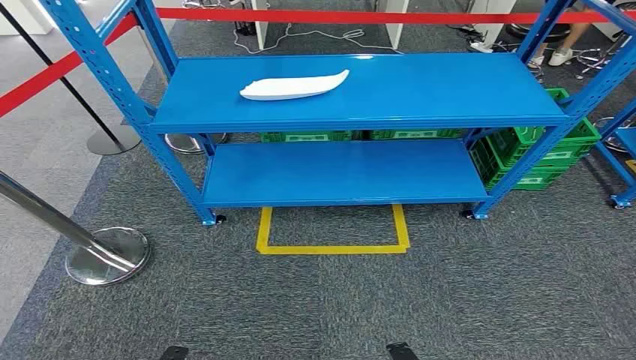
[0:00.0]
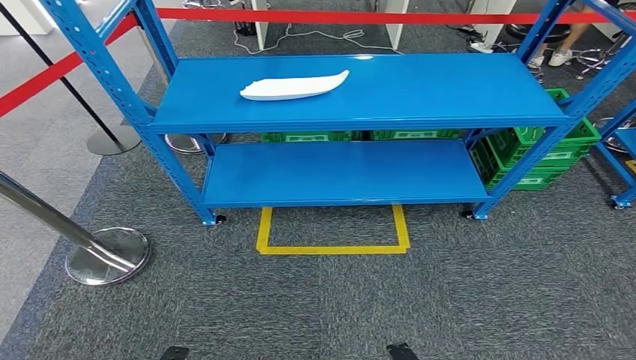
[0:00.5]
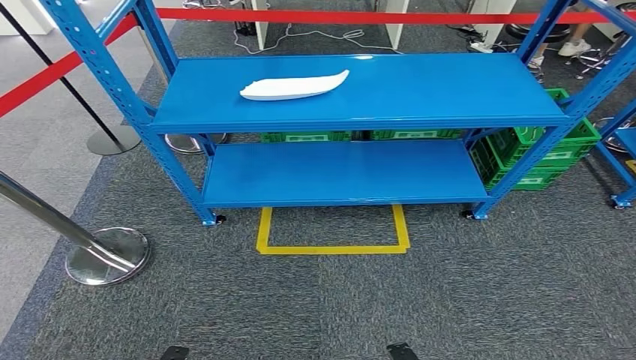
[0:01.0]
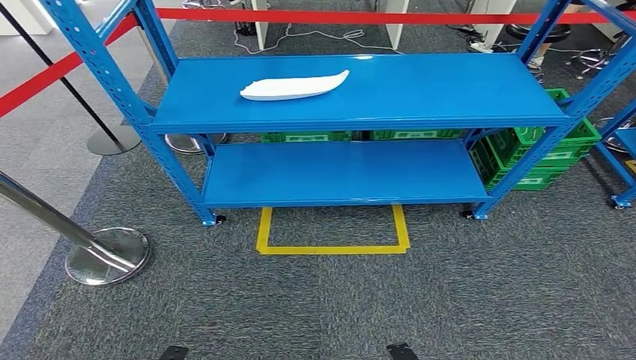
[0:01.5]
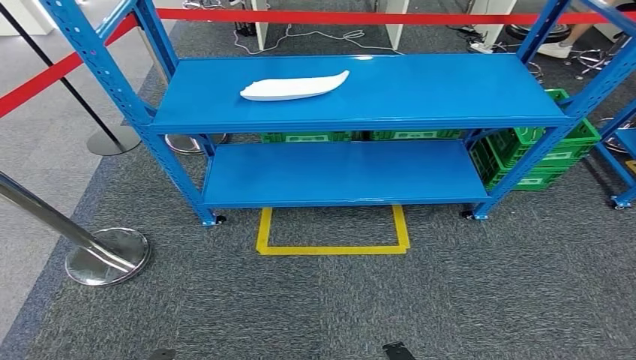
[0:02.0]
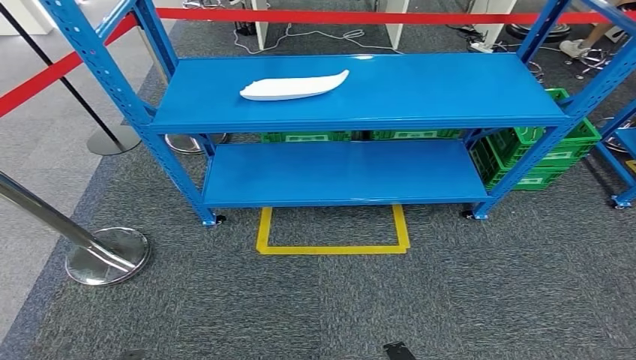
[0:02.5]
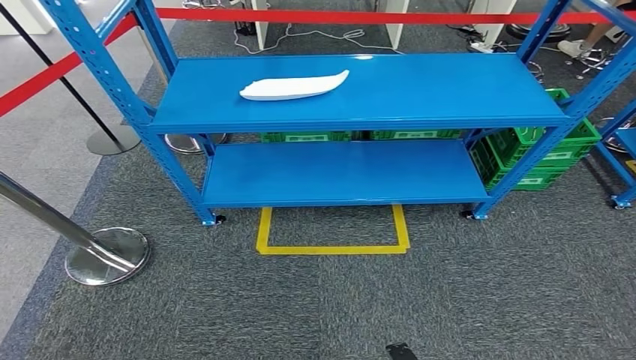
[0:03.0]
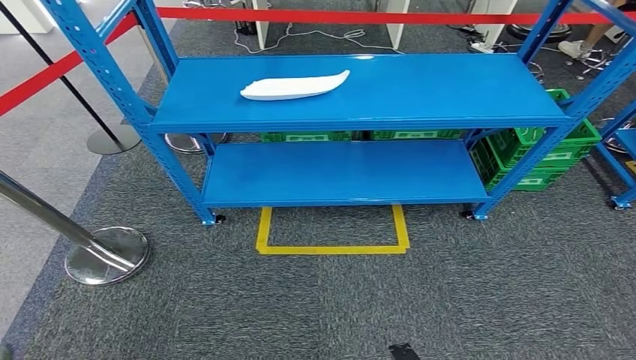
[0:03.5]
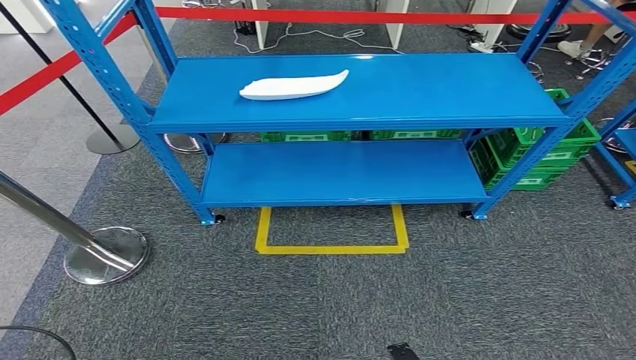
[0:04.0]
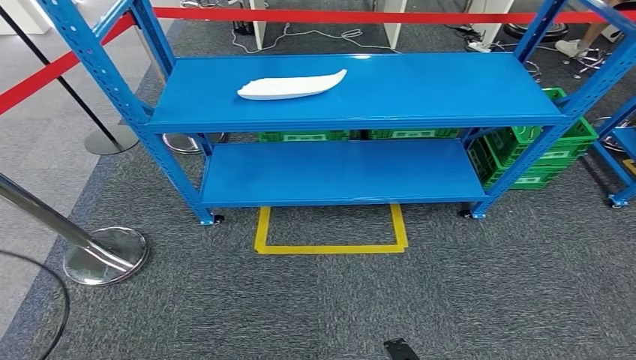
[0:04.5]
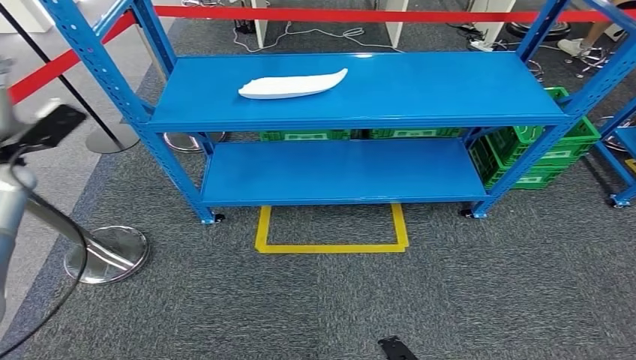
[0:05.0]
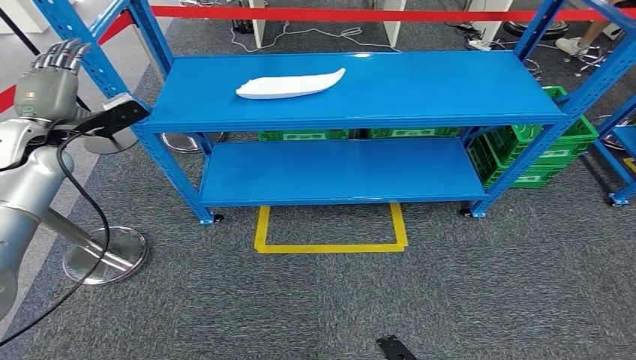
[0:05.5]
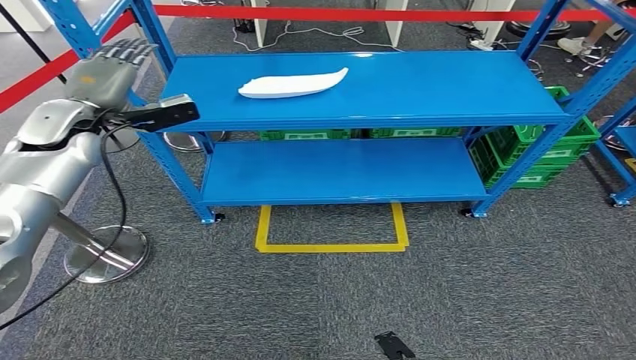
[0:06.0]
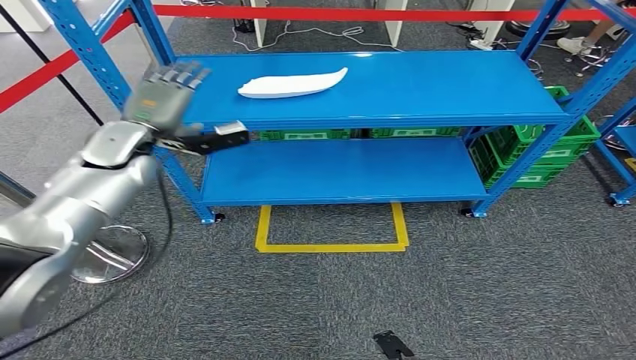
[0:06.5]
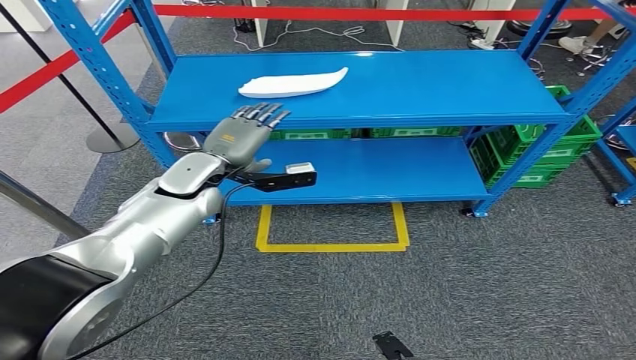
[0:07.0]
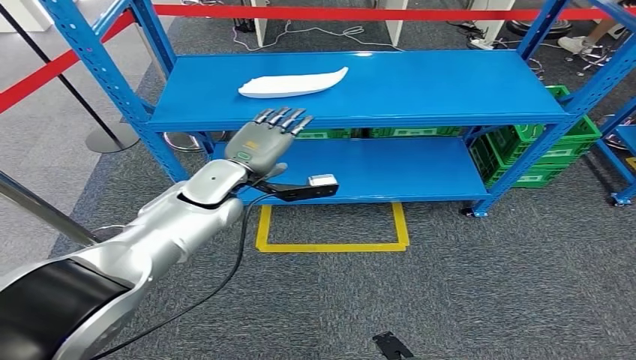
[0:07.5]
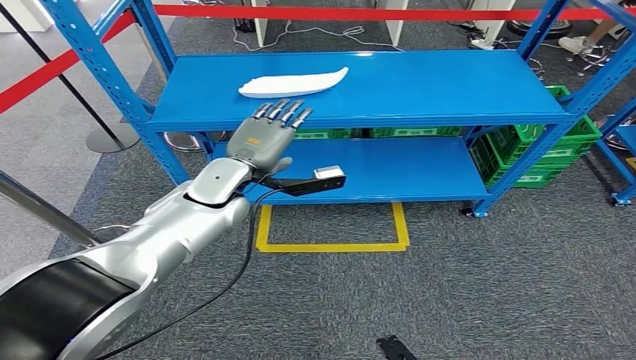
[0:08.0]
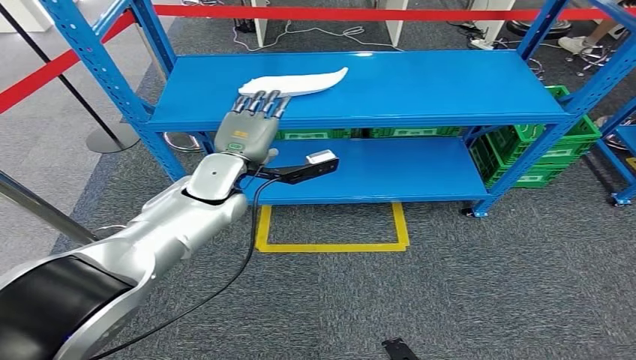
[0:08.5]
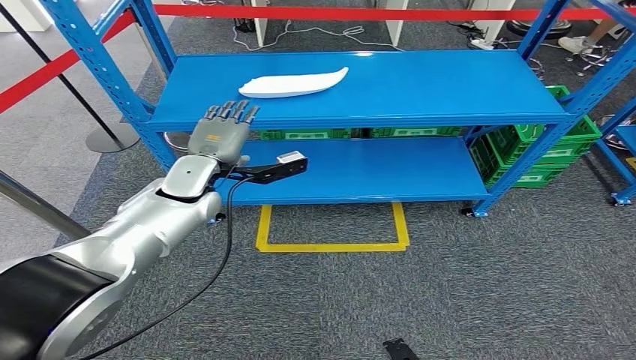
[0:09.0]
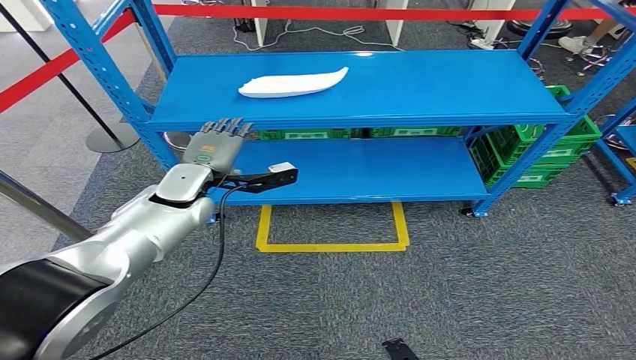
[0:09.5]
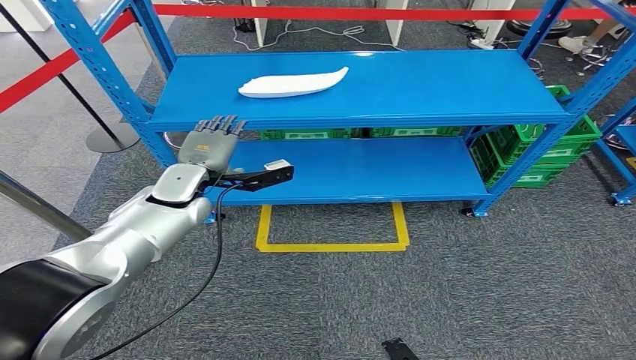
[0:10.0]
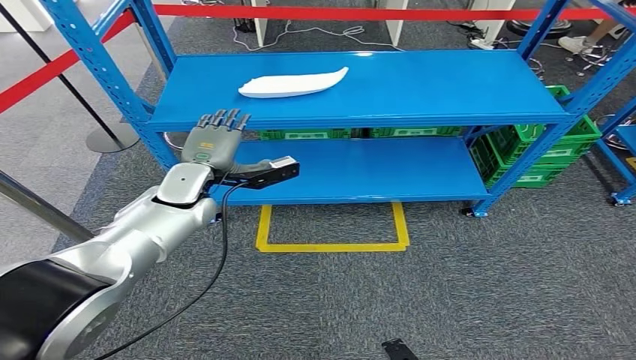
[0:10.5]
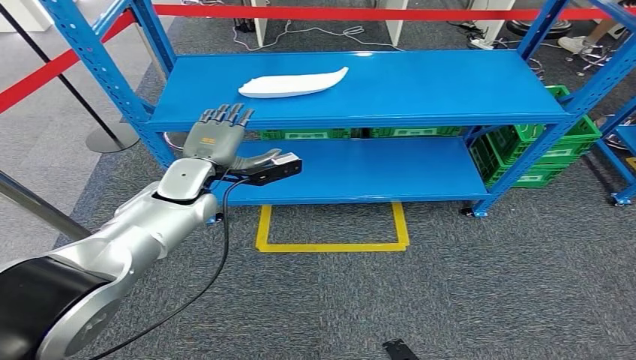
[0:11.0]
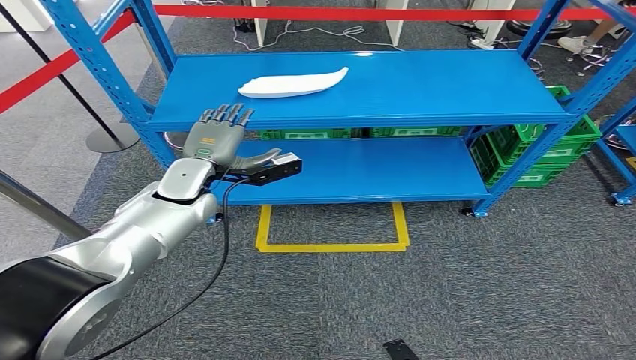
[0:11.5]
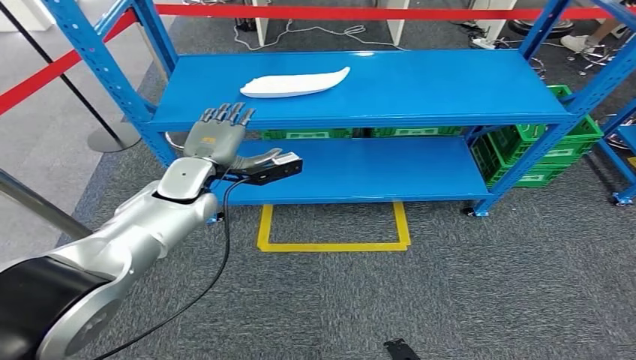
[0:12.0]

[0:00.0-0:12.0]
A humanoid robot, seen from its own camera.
0:02.0 to 0:04.0: The left hand is displaced to the left, forward and upward by some 35 cm.
0:04.0 to 0:06.0: The left hand goes roughly 50 cm forward, upward and to the right.
0:06.0 to 0:08.0: The left hand shifts approximately 25 cm to the right and downward.
0:08.0 to 0:10.0: The left hand goes some 5 cm to the left.
0:10.0 to 0:12.0: The hands move only a little.

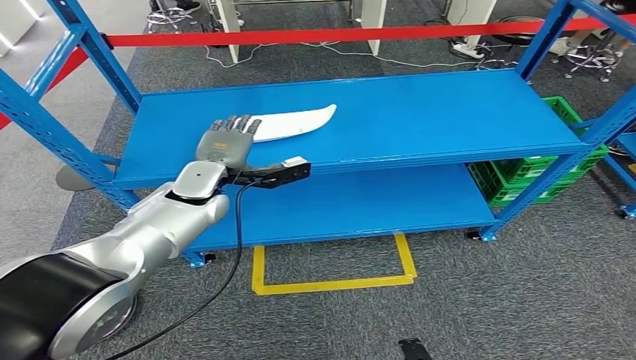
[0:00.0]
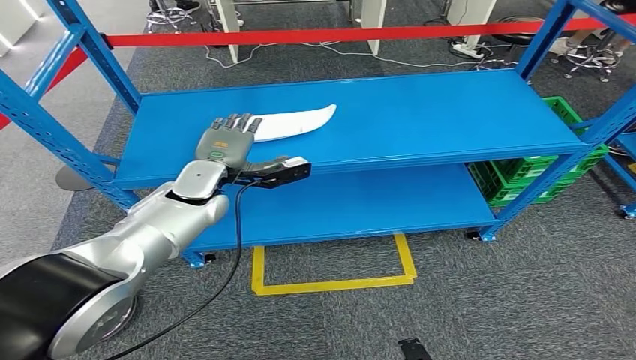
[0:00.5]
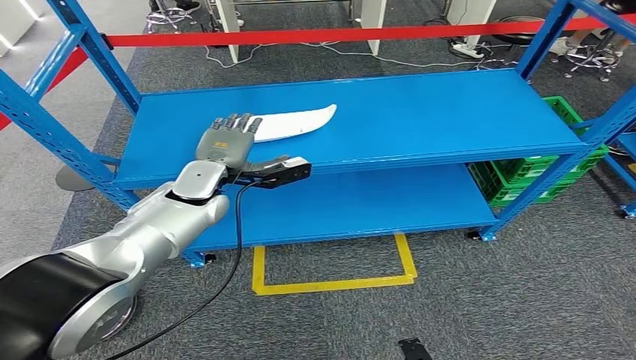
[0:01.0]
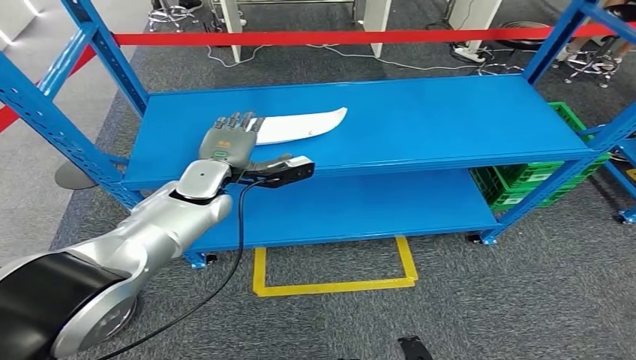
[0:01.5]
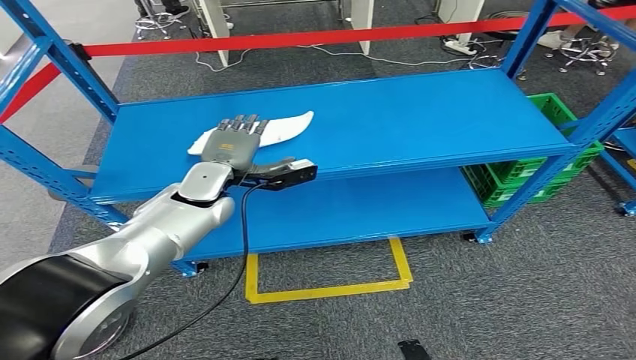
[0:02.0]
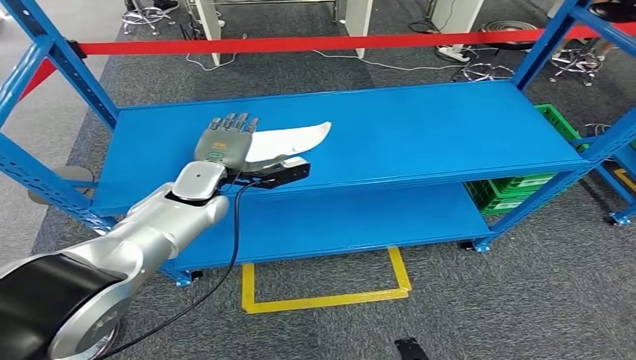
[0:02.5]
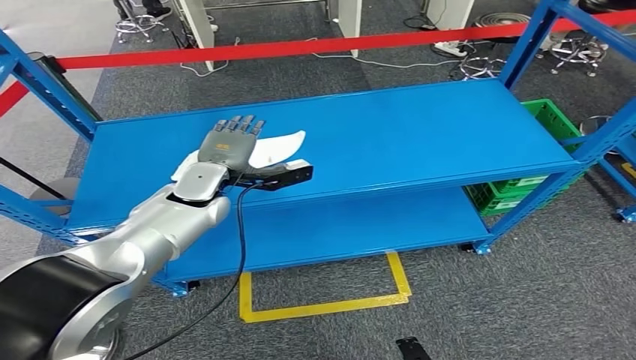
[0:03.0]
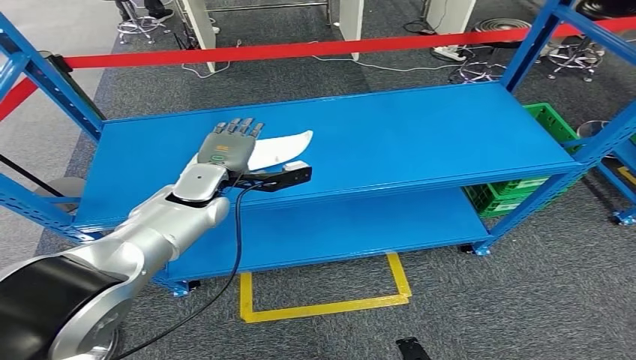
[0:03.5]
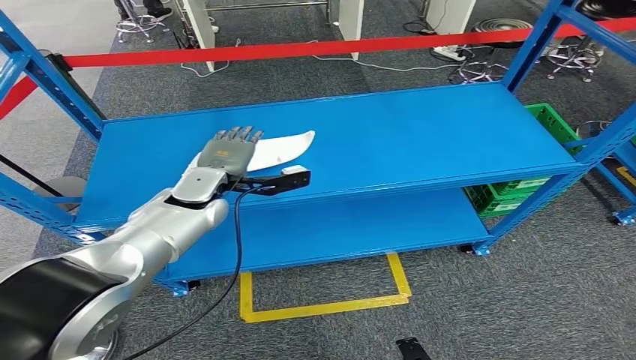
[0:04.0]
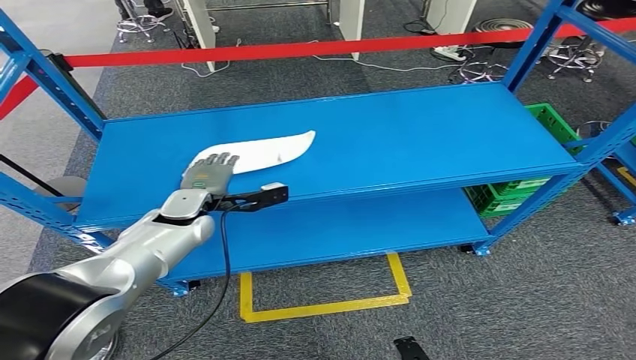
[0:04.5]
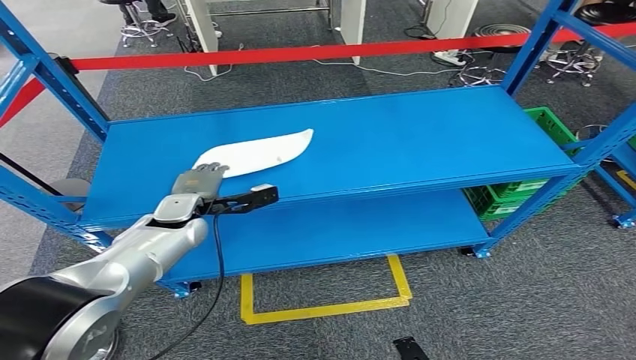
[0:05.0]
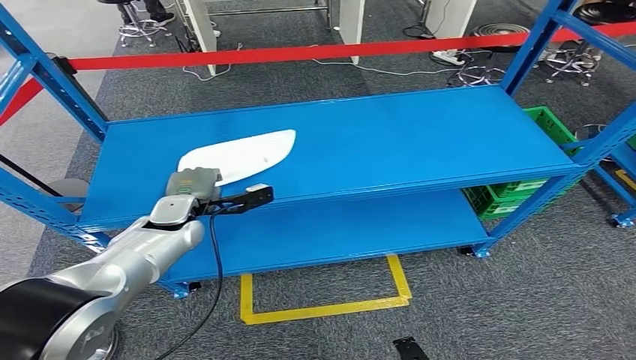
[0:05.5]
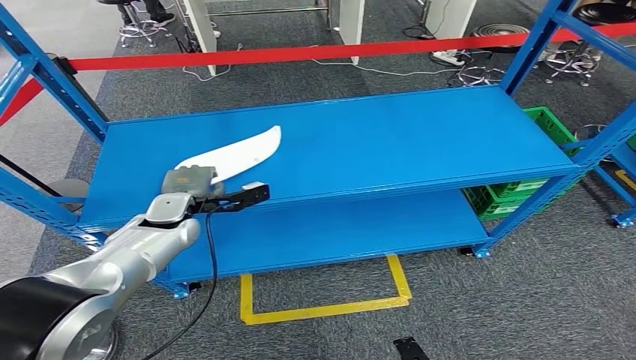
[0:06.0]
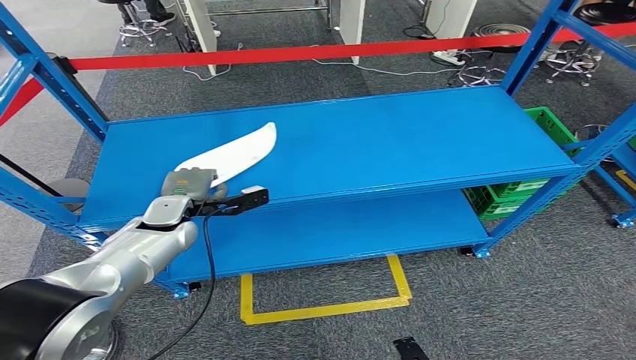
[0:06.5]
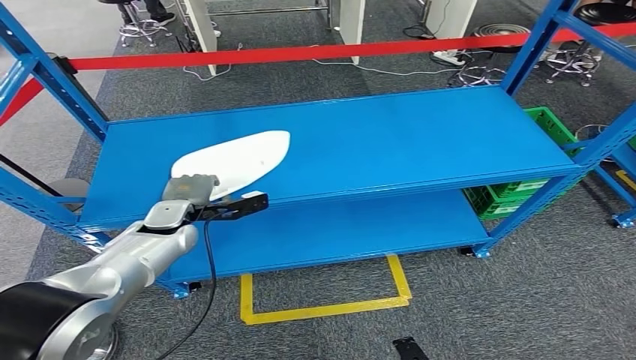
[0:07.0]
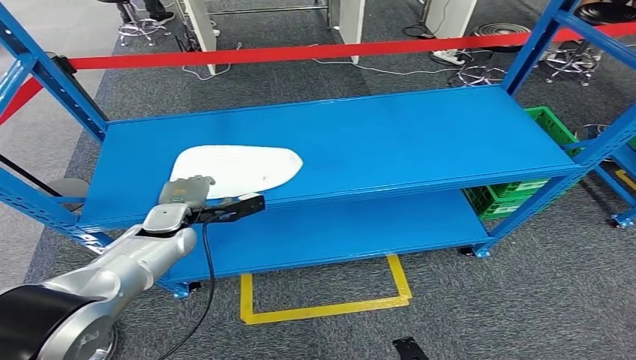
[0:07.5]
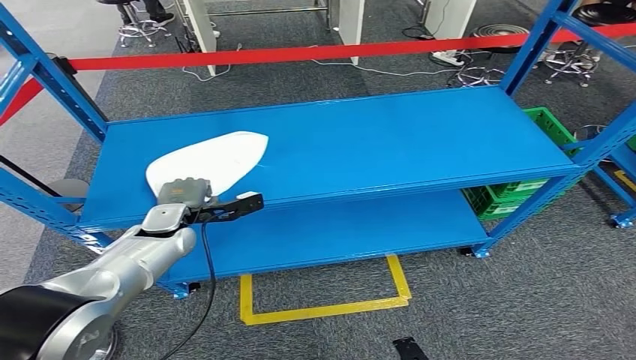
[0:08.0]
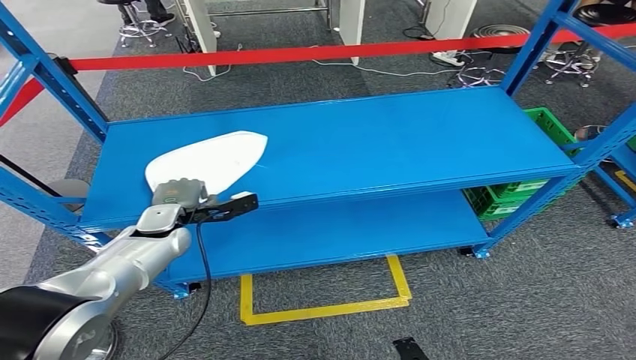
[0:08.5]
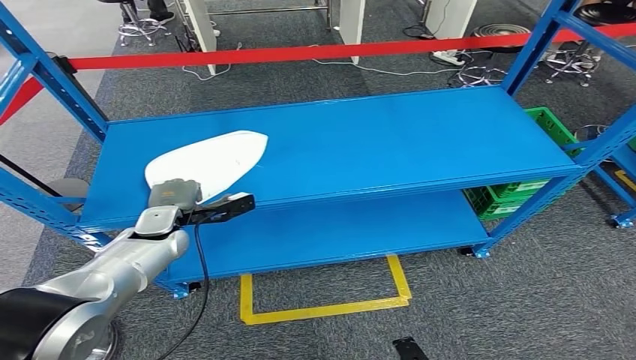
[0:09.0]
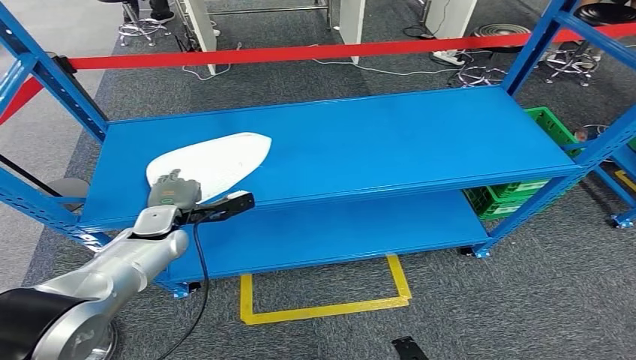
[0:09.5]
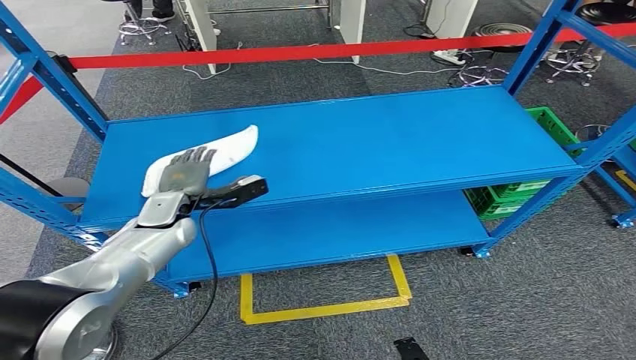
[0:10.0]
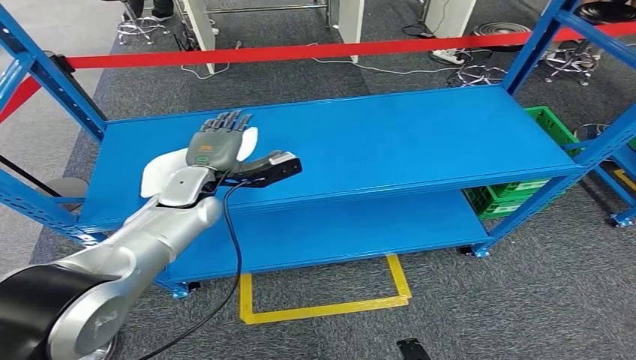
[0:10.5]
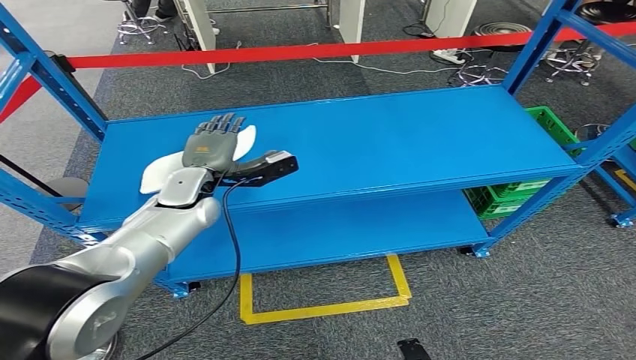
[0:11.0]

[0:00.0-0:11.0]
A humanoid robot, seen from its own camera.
0:03.5 to 0:05.5: The left hand is displaced downward and to the left by some 10 cm.
0:05.5 to 0:07.5: The hands stay close to where they were, moving slightly.
0:07.5 to 0:09.0: Both hands stay put.
0:09.0 to 0:11.0: The left hand heads upward and to the right, covering about 10 cm.
